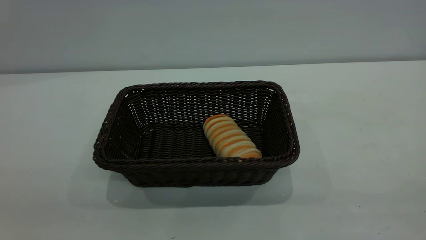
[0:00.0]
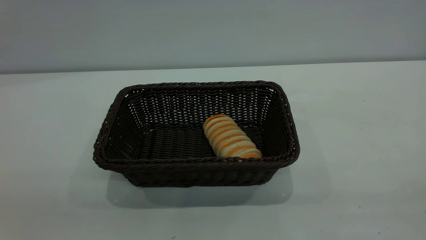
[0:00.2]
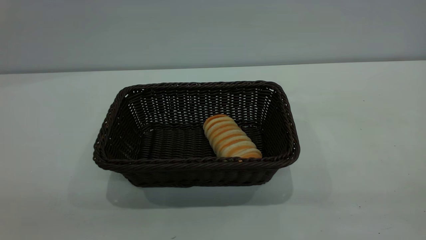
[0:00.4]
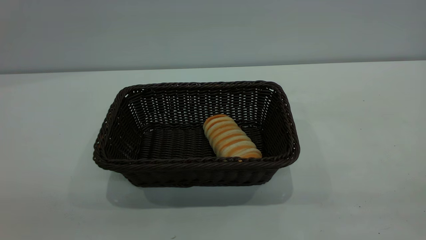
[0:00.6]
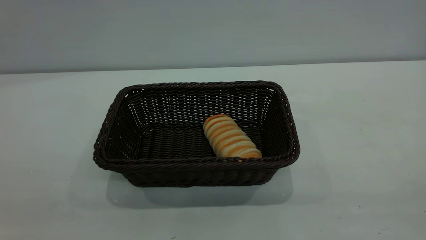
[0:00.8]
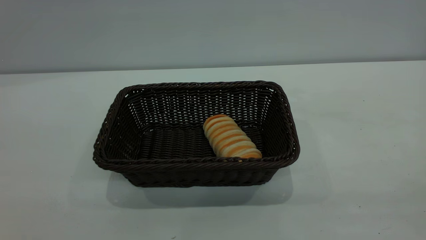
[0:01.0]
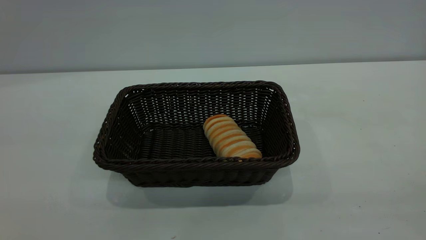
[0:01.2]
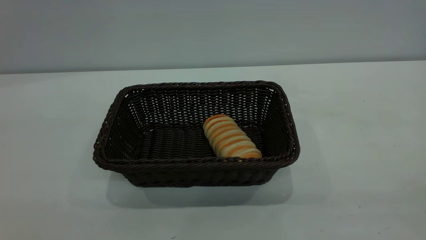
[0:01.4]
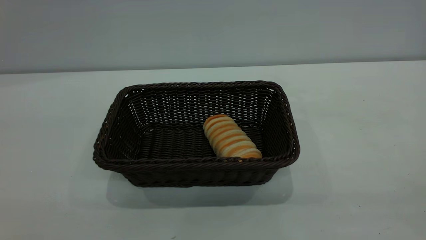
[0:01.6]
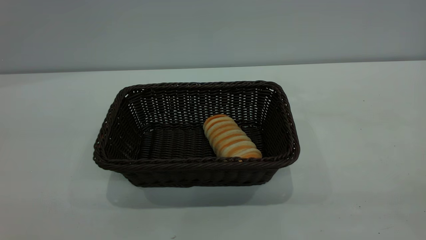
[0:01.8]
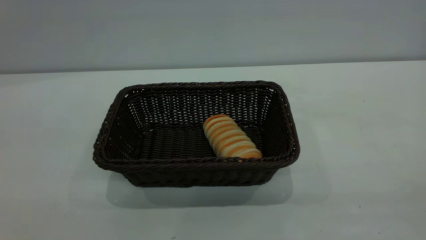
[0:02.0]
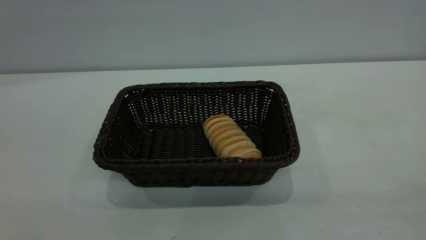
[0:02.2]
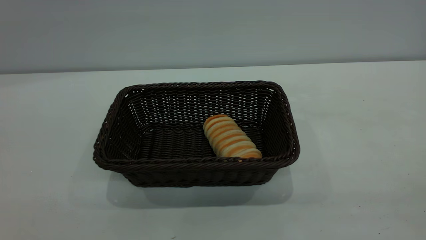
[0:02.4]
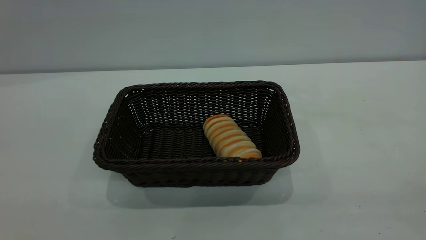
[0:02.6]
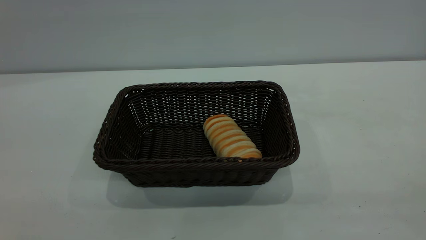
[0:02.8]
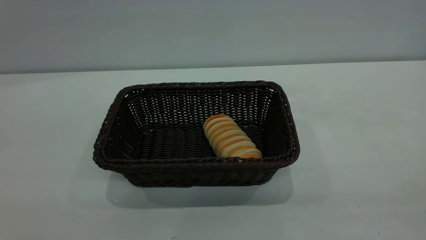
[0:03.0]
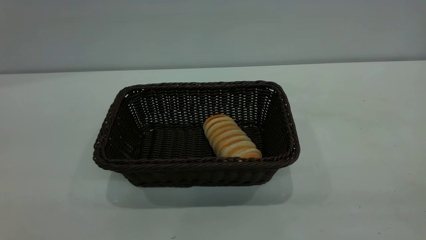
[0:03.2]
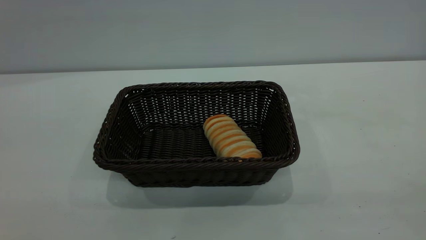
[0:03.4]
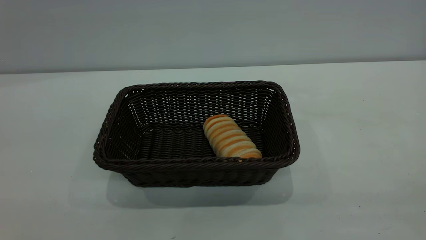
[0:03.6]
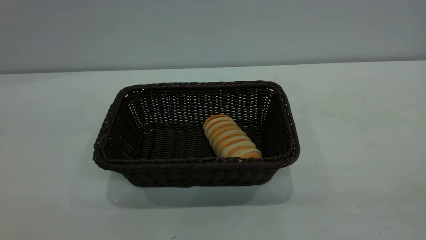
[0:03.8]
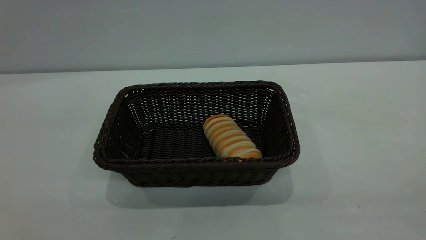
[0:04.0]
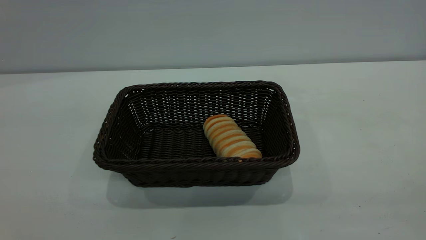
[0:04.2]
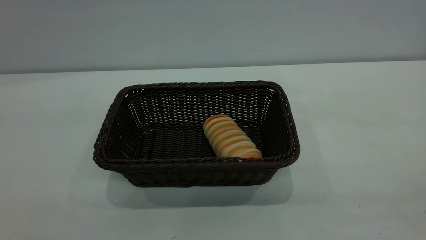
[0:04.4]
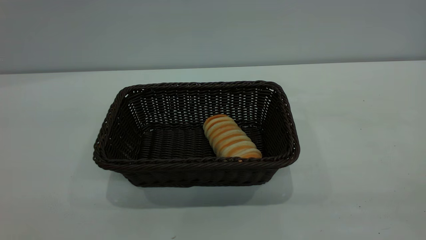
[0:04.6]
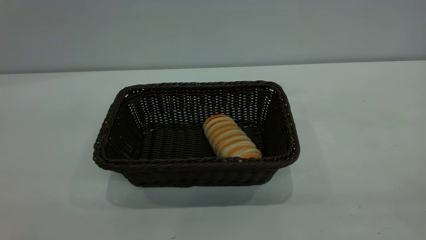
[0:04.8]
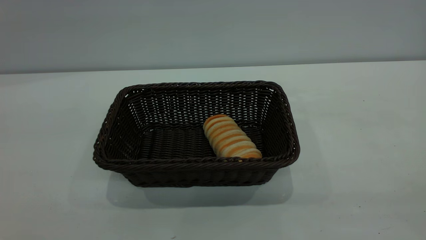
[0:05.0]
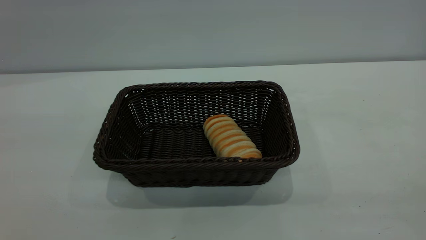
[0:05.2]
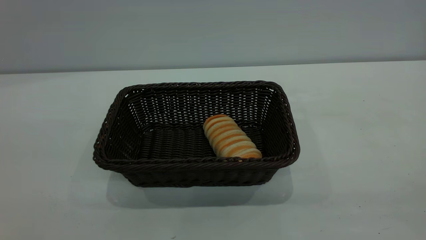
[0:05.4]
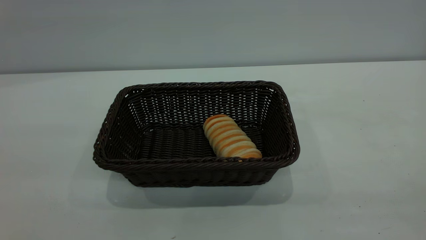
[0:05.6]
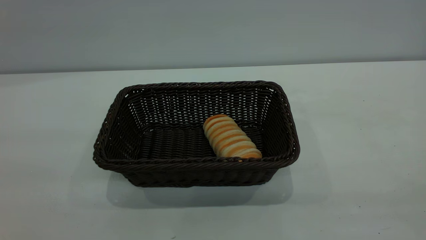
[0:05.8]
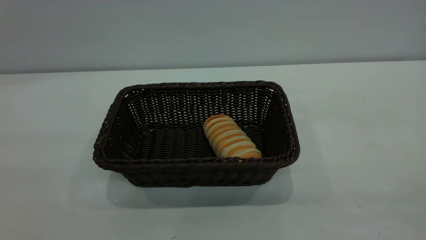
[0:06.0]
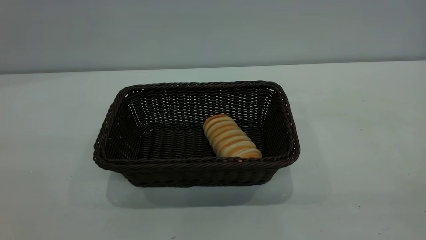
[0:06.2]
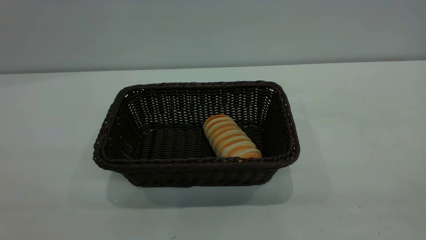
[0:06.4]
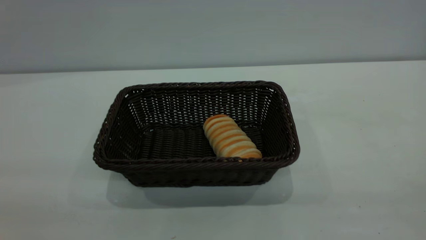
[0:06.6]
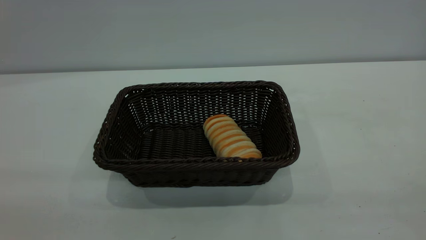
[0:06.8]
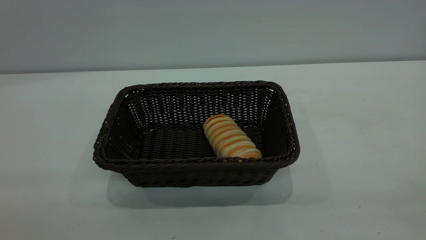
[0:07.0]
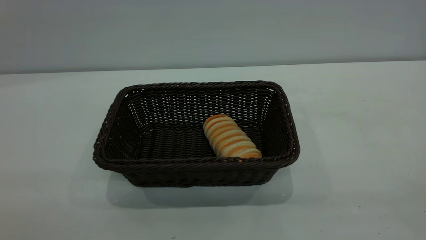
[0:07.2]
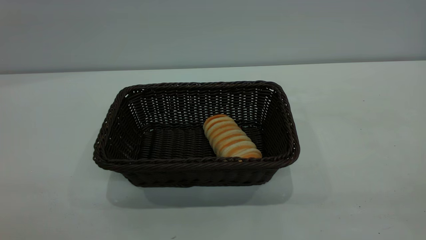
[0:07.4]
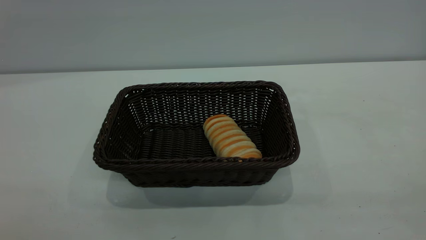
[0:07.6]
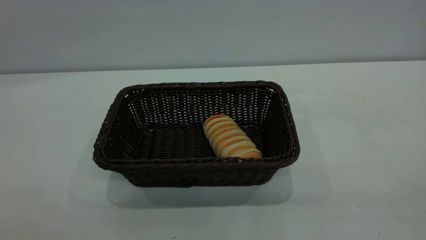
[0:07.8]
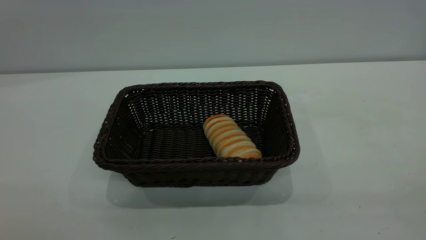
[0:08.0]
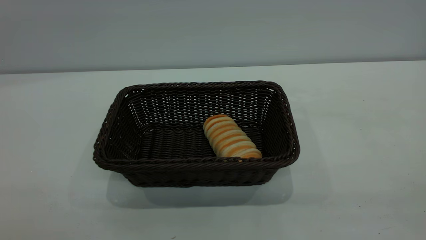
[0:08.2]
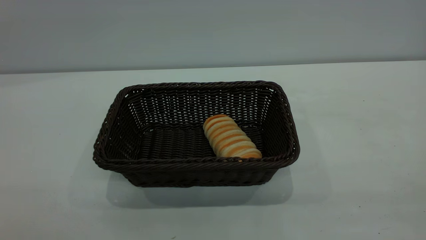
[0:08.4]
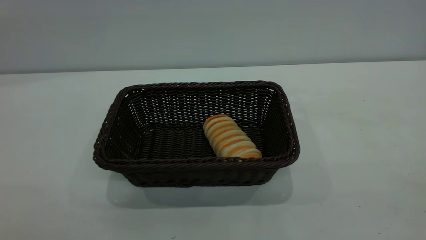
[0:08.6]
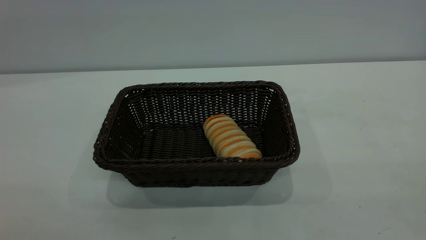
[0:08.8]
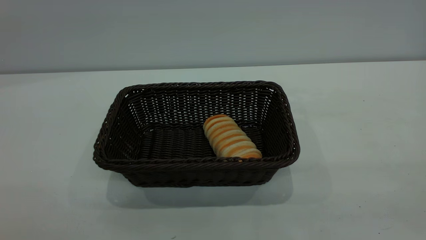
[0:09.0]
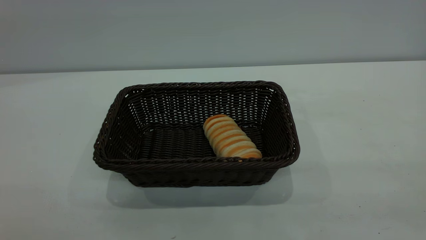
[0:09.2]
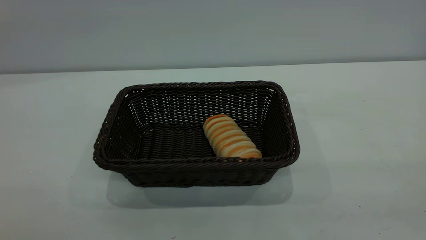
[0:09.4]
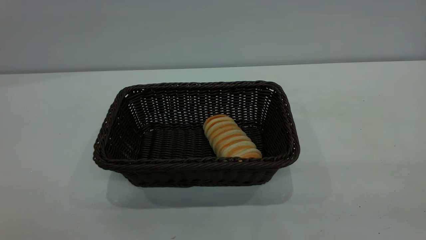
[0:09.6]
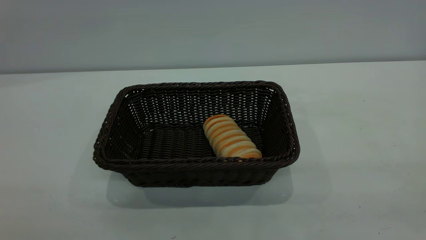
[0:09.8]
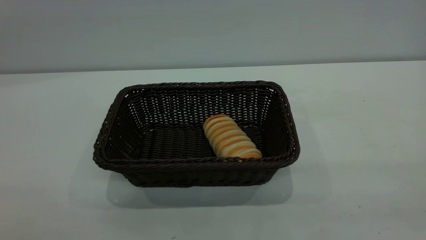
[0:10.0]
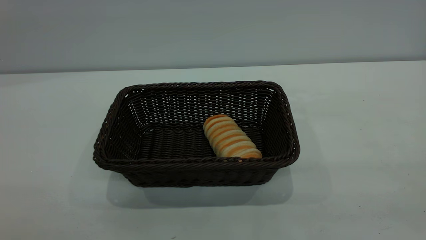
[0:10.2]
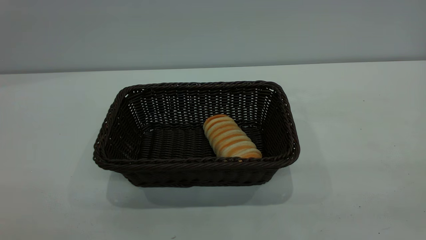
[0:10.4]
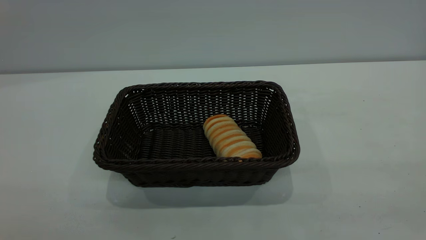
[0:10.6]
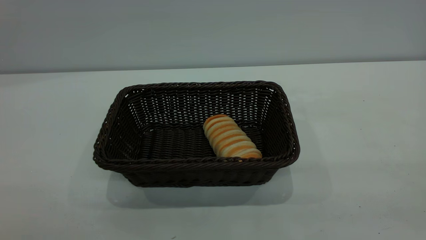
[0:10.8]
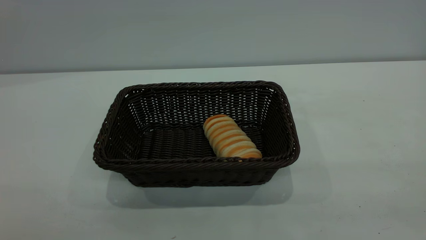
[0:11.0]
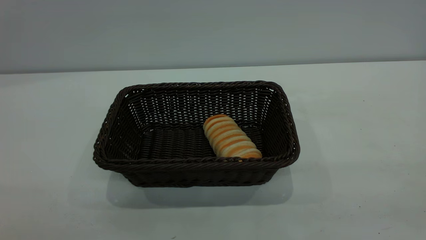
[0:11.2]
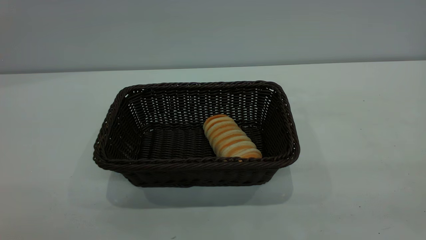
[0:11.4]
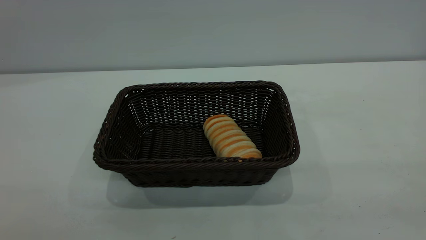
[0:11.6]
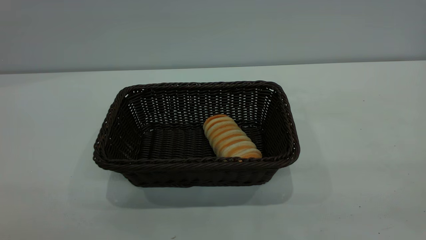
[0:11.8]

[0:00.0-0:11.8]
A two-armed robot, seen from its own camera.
Task of the whole recording: One hand grasps the black basket and places it in the middle of the table, while the other hand picks up the long bread and puts it into the black basket.
0:10.4 to 0:11.8: Both grippers stay about where they are.

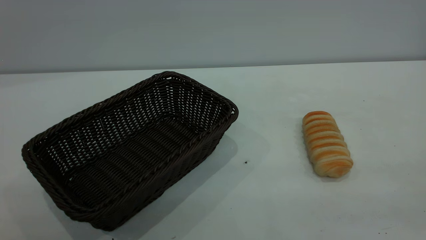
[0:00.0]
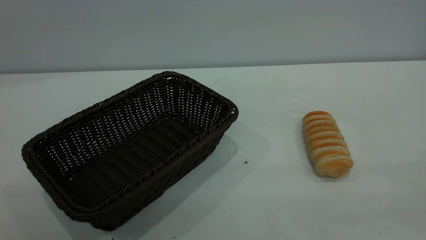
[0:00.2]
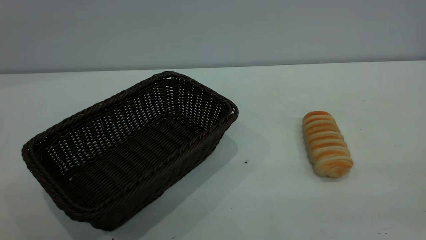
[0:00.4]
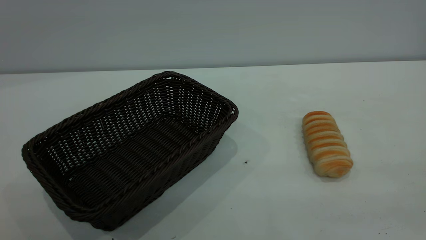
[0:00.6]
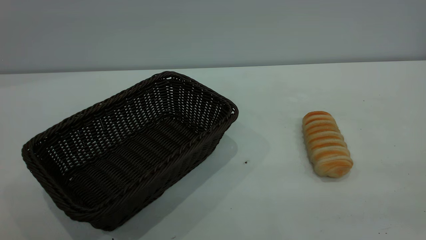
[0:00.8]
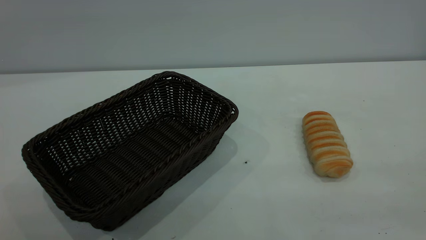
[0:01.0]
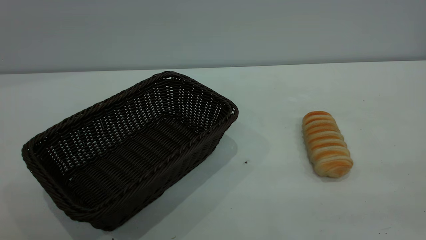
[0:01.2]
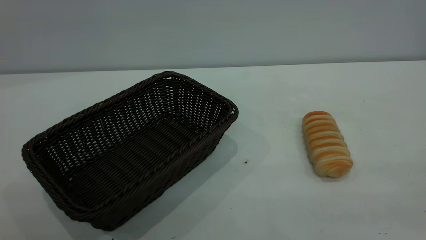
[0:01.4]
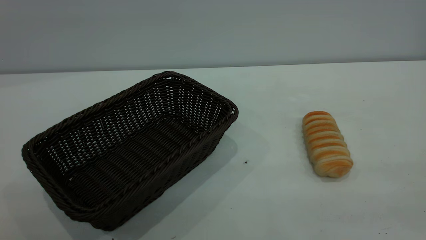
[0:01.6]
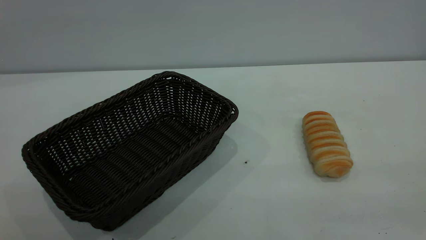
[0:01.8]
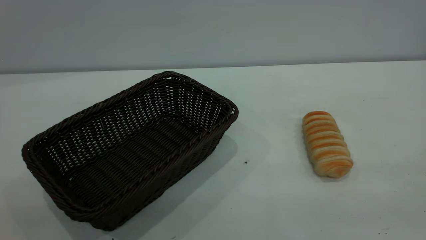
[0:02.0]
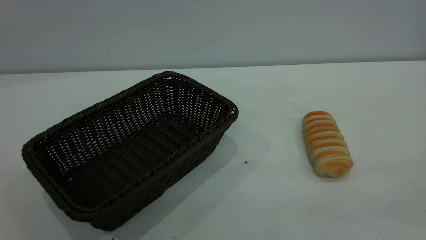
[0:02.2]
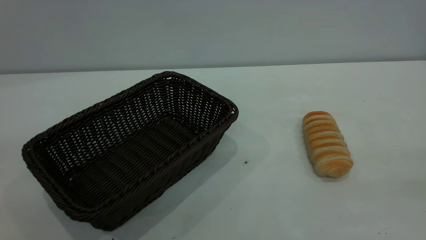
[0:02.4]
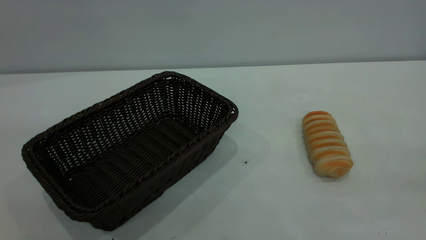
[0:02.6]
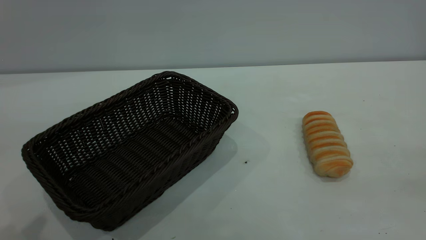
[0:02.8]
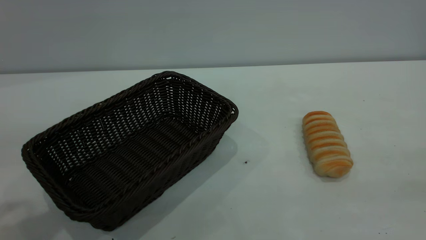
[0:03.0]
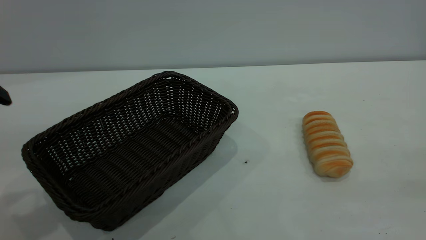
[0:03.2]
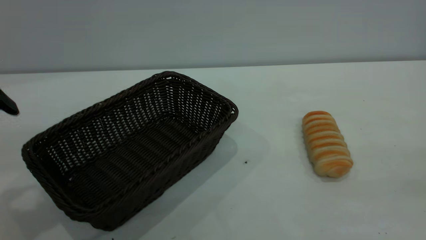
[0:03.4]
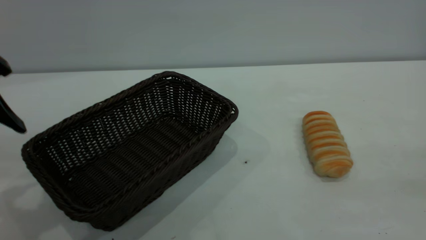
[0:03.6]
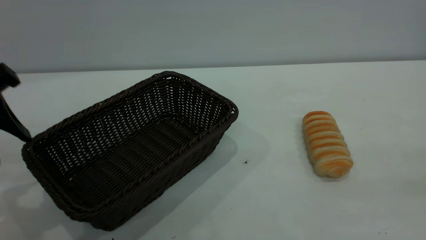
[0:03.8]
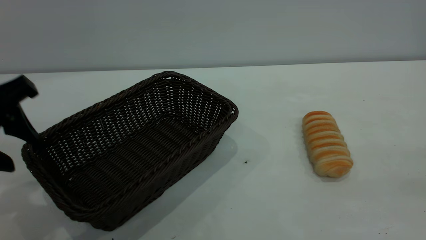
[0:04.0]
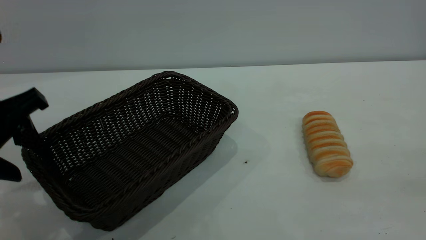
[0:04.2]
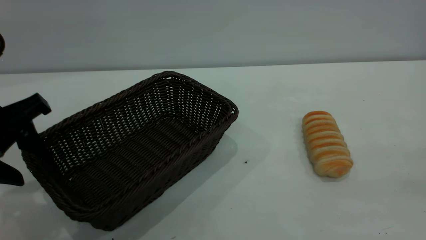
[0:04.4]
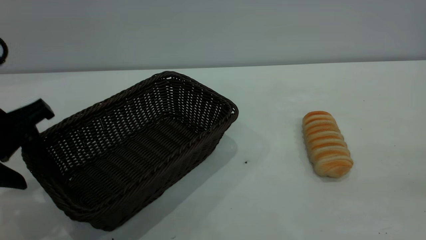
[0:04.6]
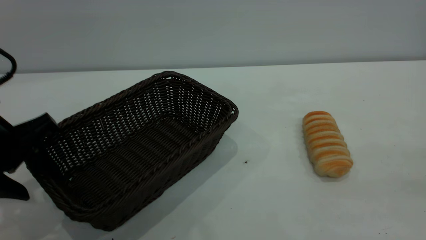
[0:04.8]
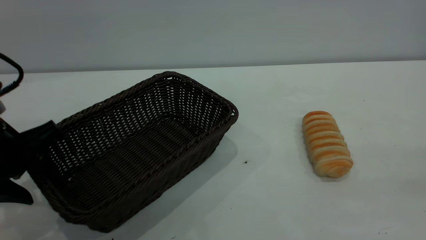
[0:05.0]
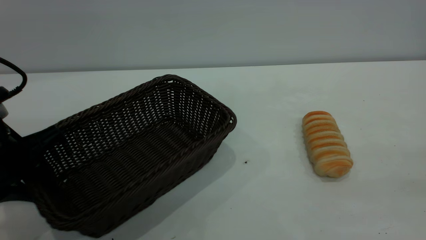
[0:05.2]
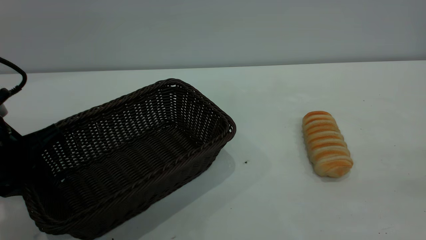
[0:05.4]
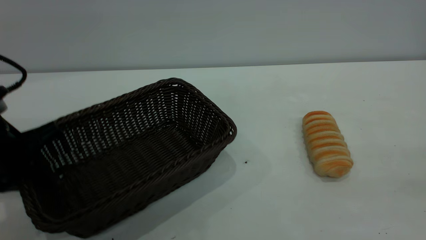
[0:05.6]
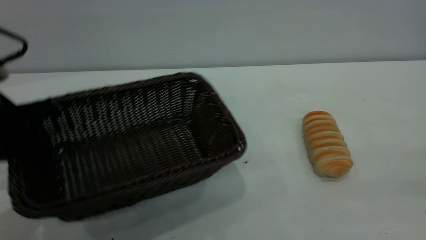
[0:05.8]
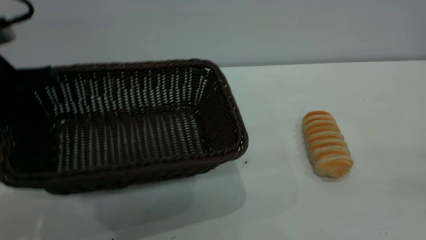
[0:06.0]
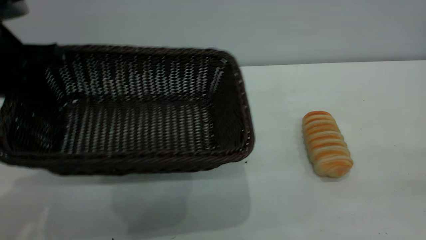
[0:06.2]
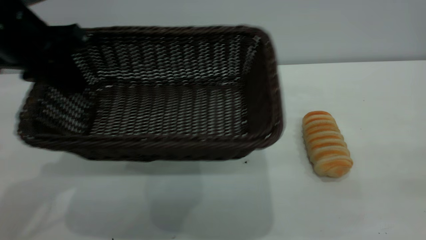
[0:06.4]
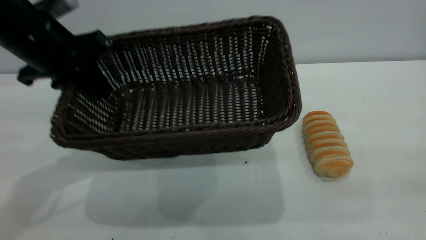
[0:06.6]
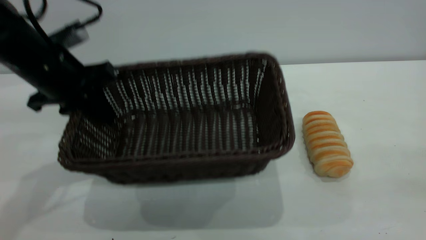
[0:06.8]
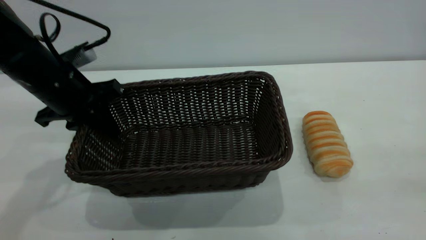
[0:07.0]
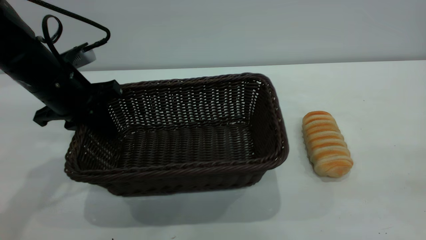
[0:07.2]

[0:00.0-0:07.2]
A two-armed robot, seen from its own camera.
Task of the whole recording: One hand grasps the black basket and places it in the middle of the table, while the other hand picks up the long bread and puts it into the black basket.
0:00.0 to 0:01.4: The two grippers keep their place.
0:02.8 to 0:04.4: The left gripper goes approximately 15 cm downward and forward.
0:04.4 to 0:05.8: The left gripper closes.
0:05.8 to 0:07.2: The left gripper goes some 10 cm forward.
